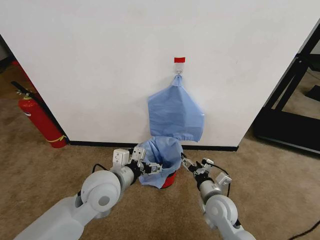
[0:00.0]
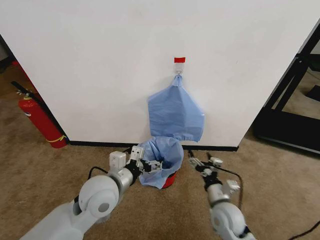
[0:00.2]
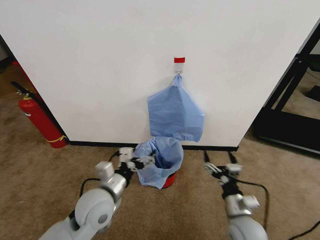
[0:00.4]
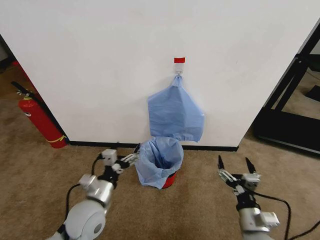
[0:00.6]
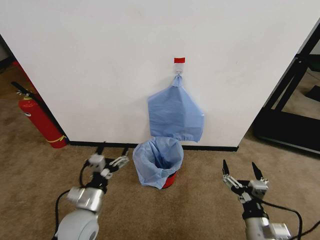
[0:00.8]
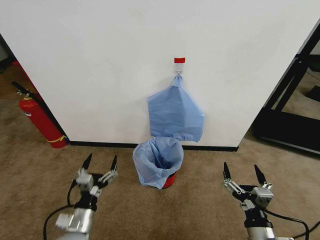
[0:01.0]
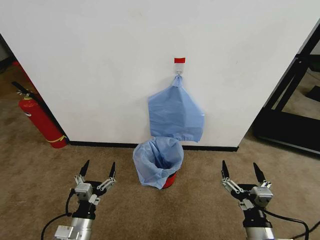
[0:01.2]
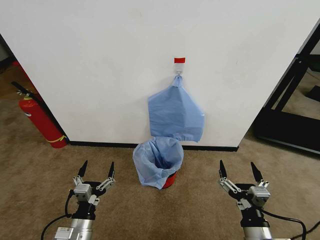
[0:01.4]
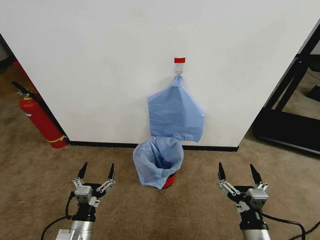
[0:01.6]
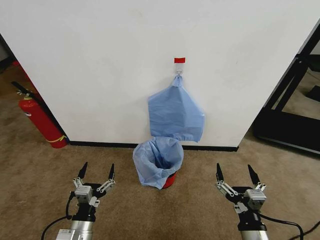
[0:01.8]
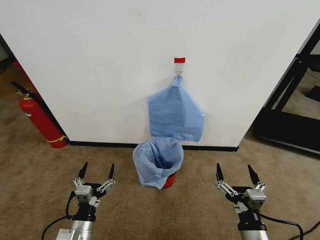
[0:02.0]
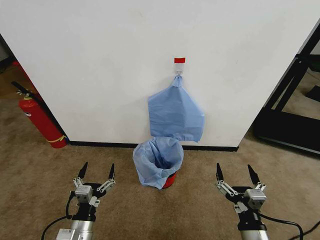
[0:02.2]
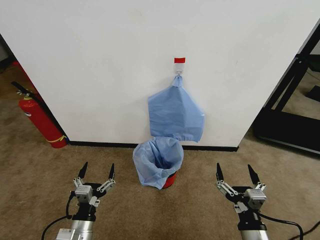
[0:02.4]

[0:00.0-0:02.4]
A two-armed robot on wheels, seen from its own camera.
Task of the whole recording: Pick up the garbage bag from the wall and place it over the trash bin.
0:00.0 to 0:01.2: The right gripper heads backward, covering roughly 15 cm. Meanwhile the left gripper travels downward, backward and to the left by about 25 cm.
0:01.2 to 0:02.4: The grippers make only small movements.

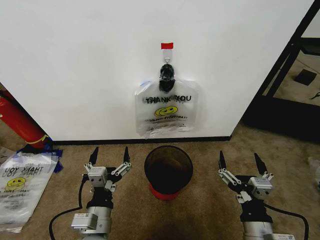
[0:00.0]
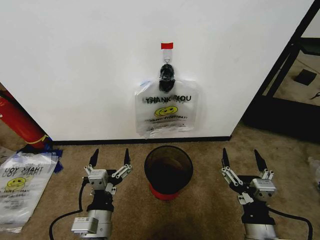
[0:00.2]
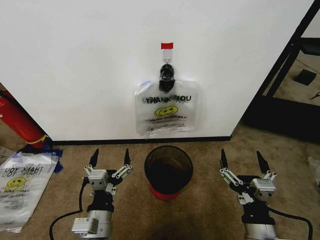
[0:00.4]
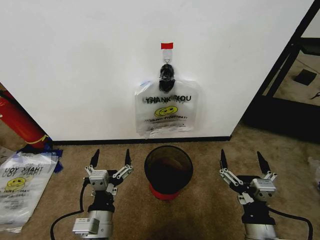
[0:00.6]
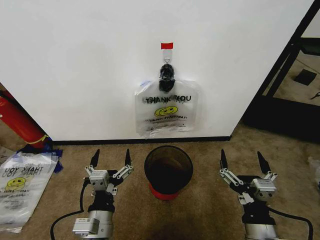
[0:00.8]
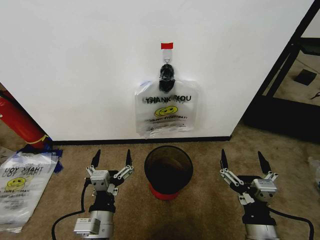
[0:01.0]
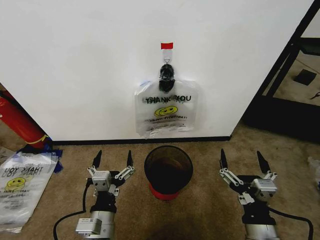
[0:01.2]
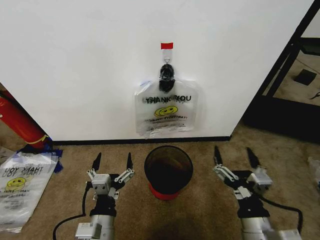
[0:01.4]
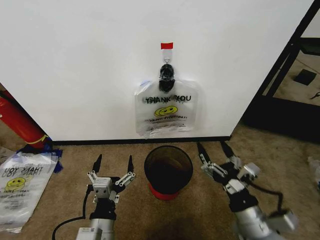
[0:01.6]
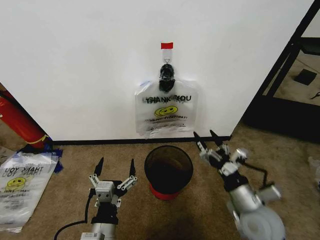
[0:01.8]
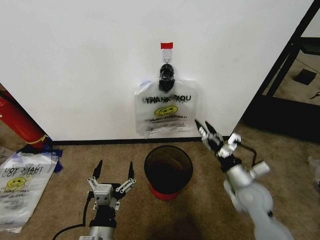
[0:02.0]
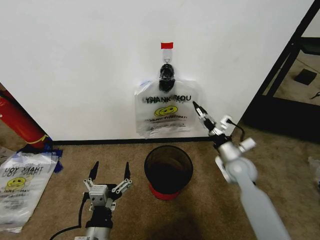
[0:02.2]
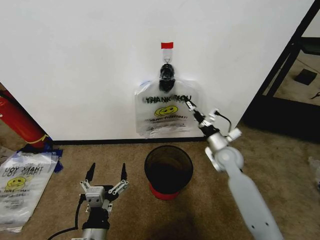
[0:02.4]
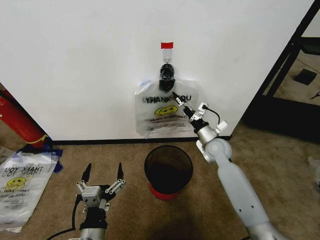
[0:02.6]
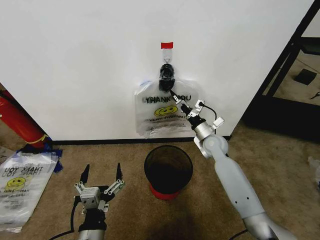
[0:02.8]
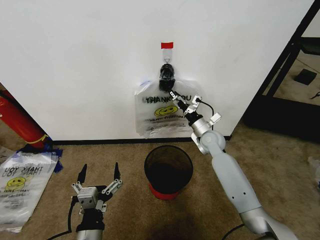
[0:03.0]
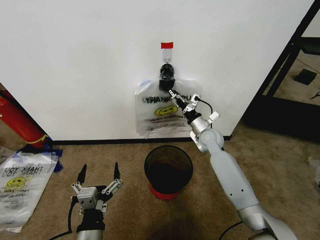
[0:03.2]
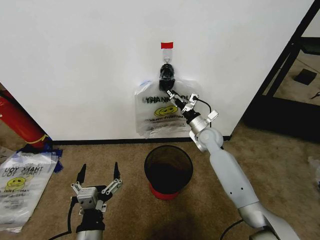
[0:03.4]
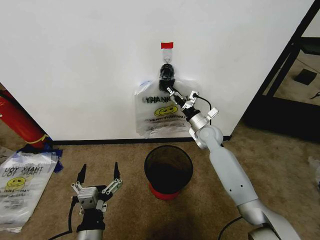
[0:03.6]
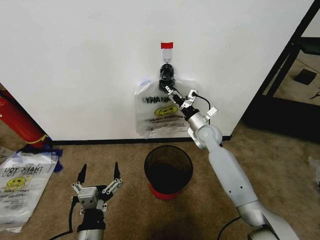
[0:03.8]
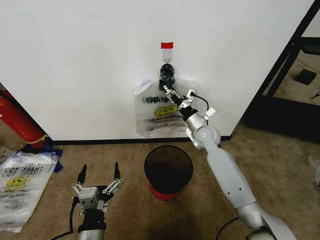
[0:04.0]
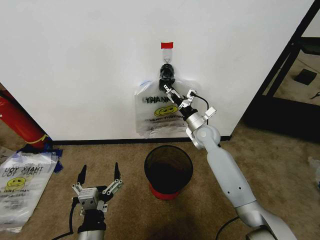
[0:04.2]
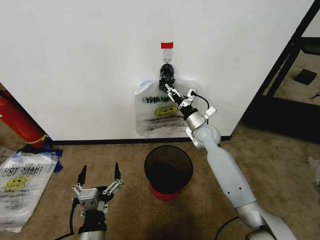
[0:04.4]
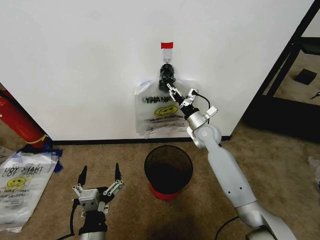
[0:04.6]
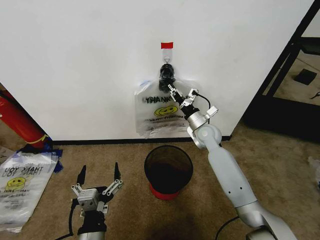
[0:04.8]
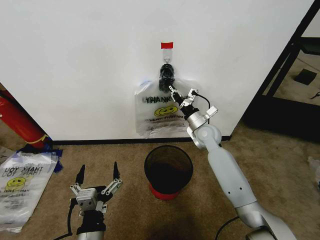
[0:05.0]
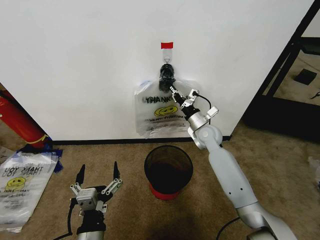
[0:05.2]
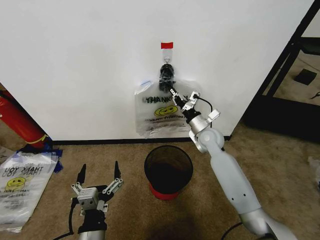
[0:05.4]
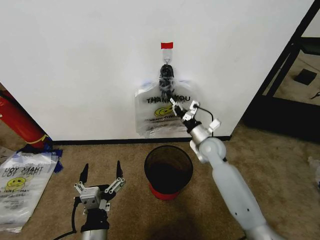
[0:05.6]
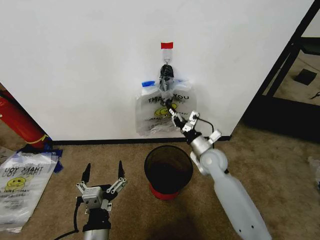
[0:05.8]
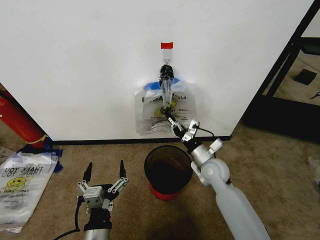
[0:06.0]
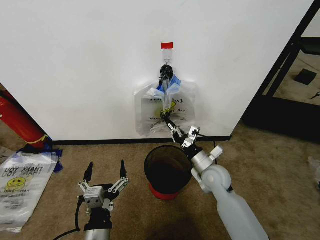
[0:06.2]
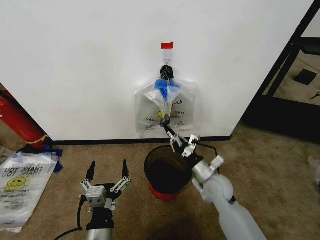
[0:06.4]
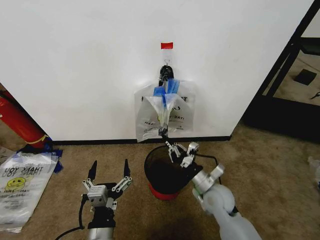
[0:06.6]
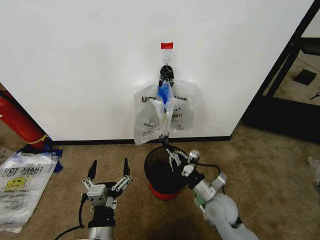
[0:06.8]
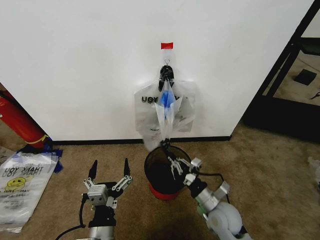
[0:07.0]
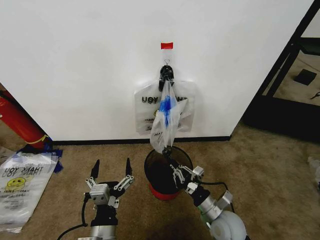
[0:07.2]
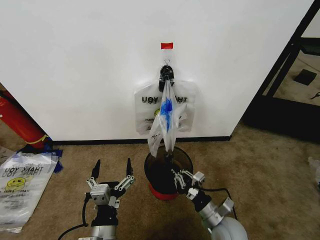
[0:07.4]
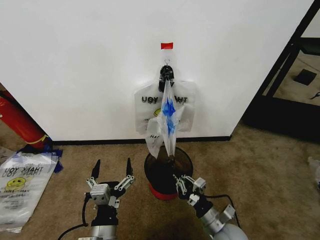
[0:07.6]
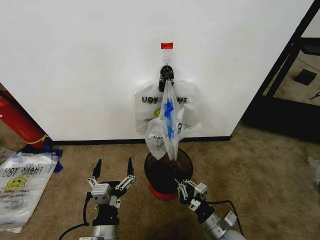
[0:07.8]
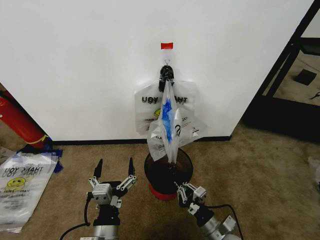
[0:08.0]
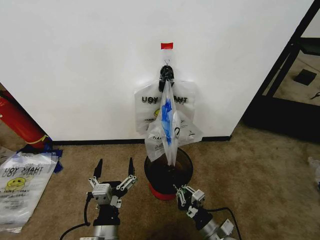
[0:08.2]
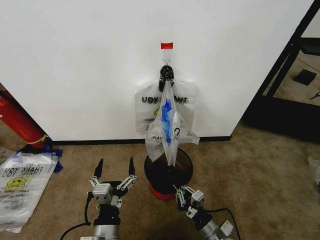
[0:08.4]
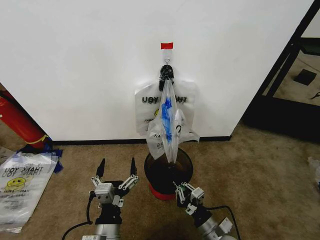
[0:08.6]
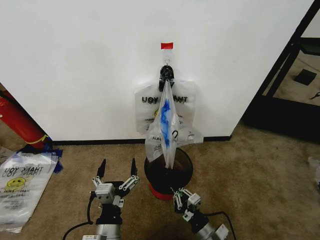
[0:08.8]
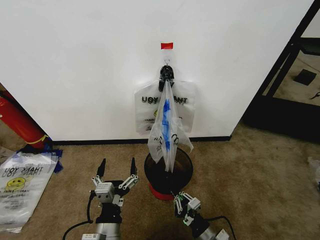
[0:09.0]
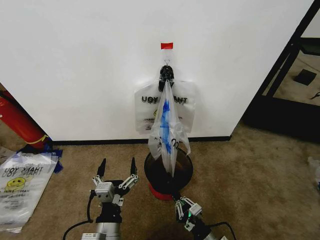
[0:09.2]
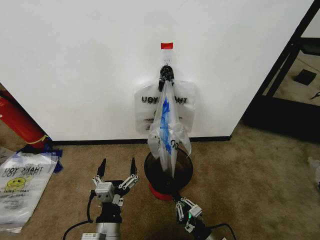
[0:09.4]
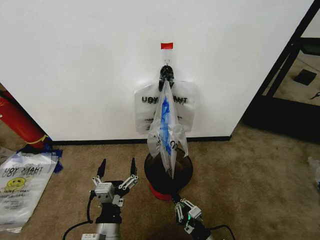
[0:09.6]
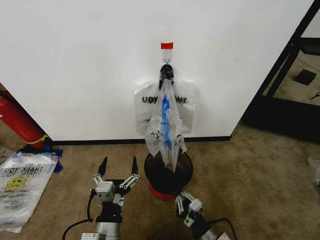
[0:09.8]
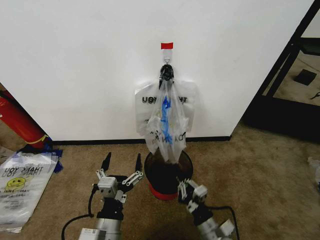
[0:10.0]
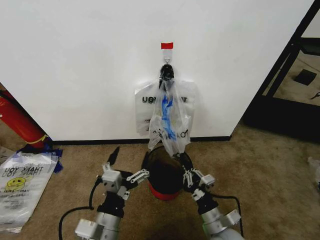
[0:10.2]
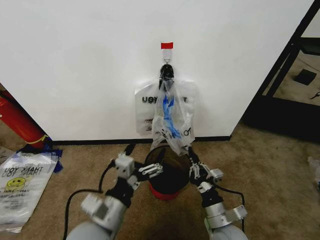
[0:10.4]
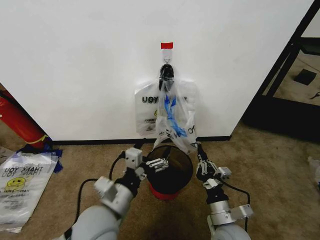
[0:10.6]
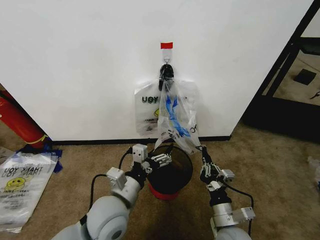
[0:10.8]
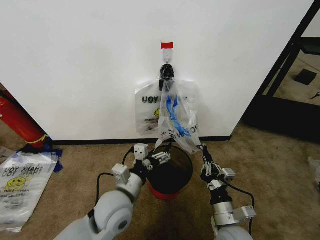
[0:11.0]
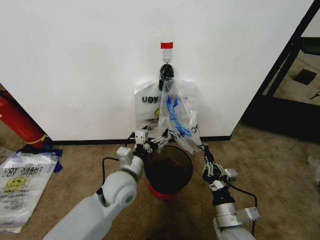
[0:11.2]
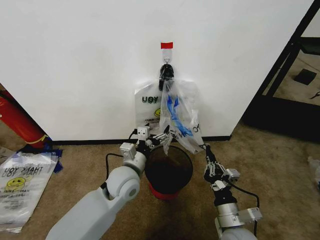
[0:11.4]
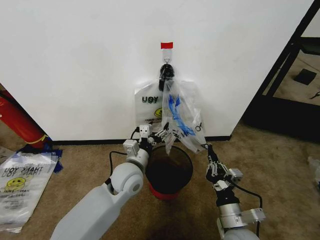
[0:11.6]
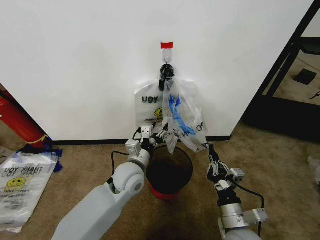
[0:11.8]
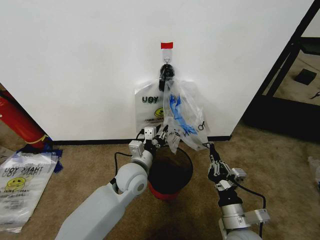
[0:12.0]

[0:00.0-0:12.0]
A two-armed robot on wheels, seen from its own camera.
Task of the whole recording: Pick up the garbage bag from the wall and place it over the trash bin.
0:01.6 to 0:03.0: The right gripper moves forward, about 35 cm.
0:03.0 to 0:04.4: The right gripper closes.
0:04.4 to 0:06.0: The right gripper moves backward and downward, some 15 cm, and closes its fingers.
0:06.0 to 0:07.6: The right gripper goes about 20 cm backward and downward.
0:07.6 to 0:09.0: The right gripper travels backward by some 5 cm.
0:09.0 to 0:10.4: Both grippers travel together upward, some 10 cm.
0:10.4 to 0:12.0: The left gripper heads forward, covering roughly 20 cm, and closes.

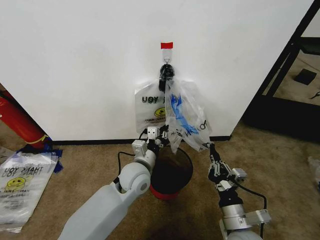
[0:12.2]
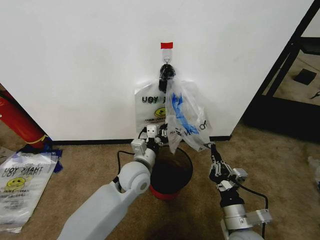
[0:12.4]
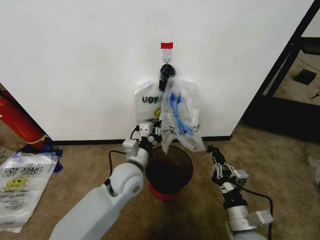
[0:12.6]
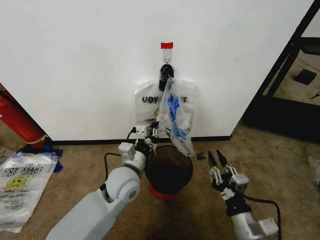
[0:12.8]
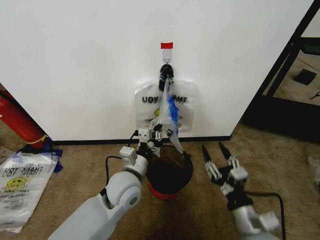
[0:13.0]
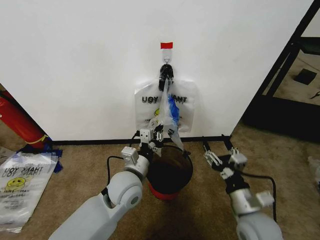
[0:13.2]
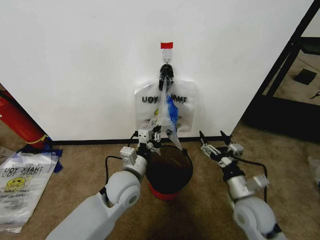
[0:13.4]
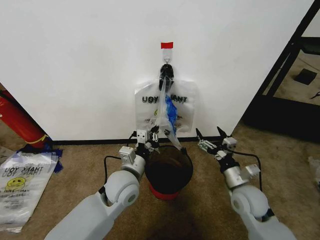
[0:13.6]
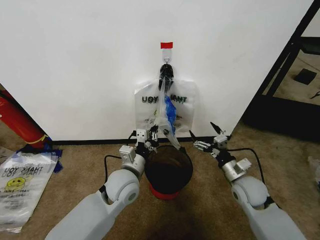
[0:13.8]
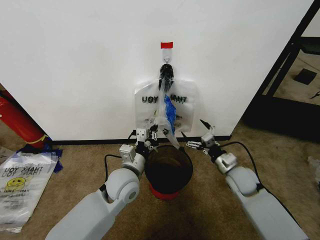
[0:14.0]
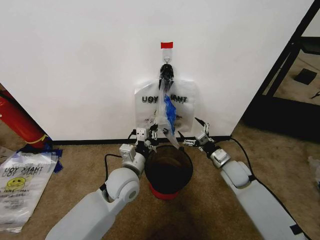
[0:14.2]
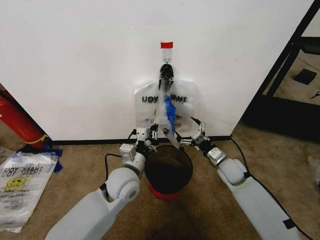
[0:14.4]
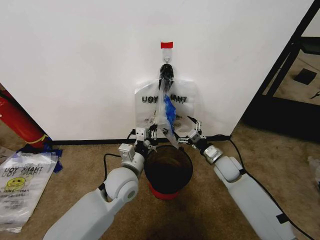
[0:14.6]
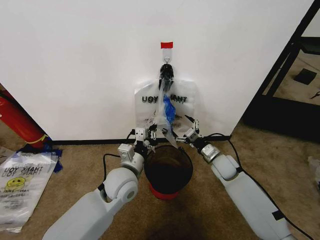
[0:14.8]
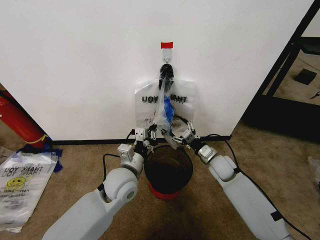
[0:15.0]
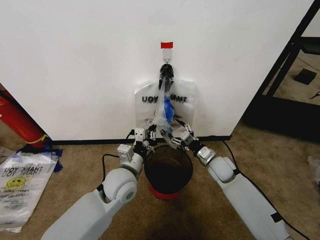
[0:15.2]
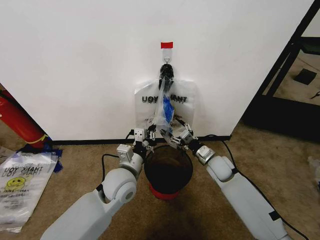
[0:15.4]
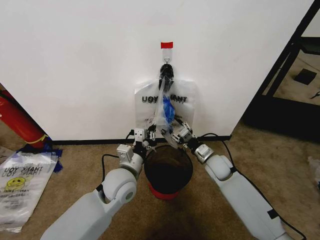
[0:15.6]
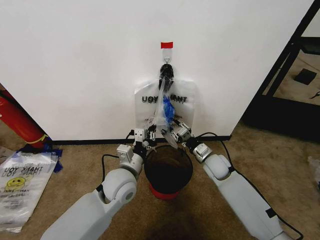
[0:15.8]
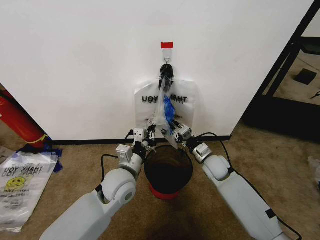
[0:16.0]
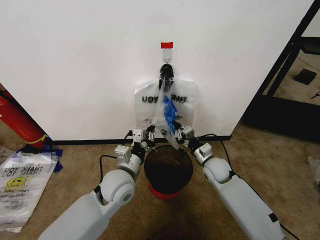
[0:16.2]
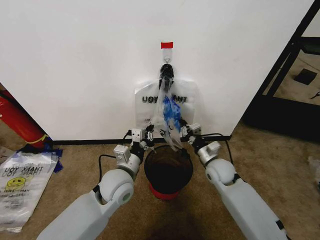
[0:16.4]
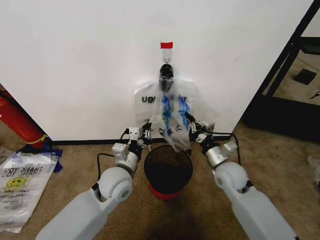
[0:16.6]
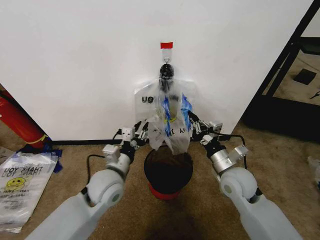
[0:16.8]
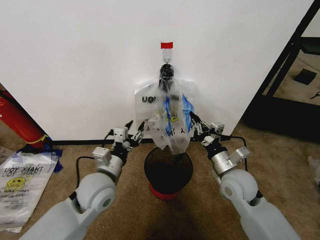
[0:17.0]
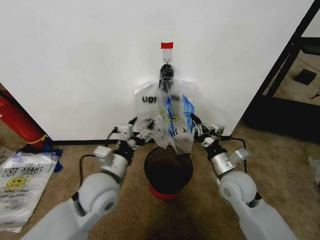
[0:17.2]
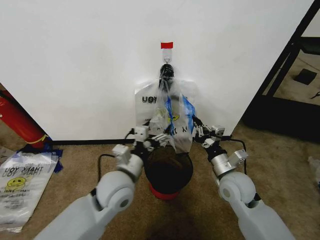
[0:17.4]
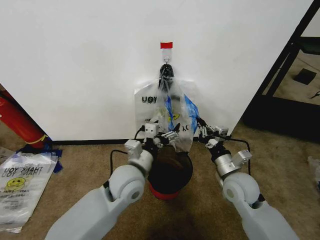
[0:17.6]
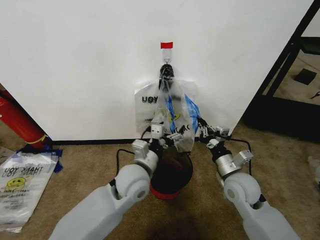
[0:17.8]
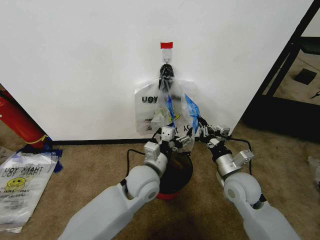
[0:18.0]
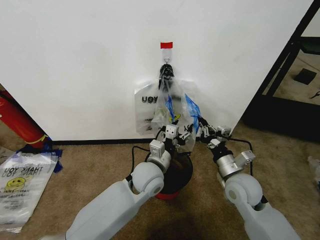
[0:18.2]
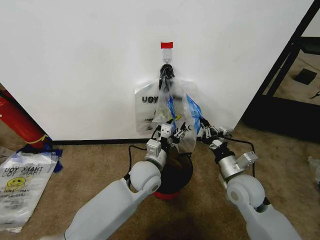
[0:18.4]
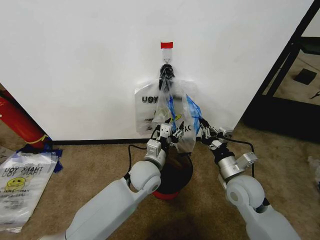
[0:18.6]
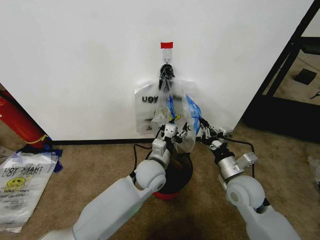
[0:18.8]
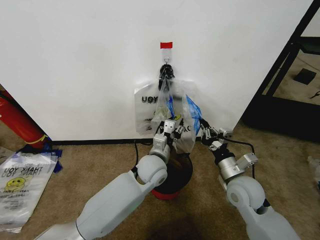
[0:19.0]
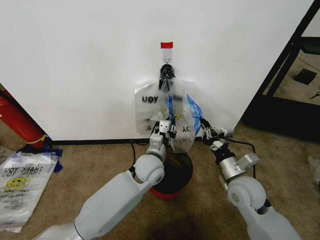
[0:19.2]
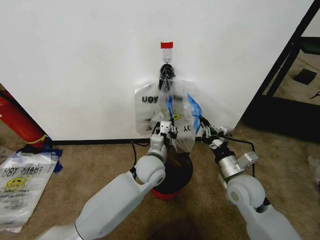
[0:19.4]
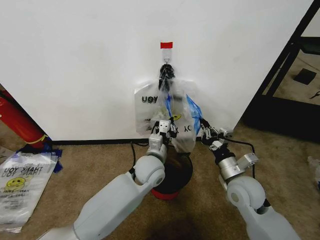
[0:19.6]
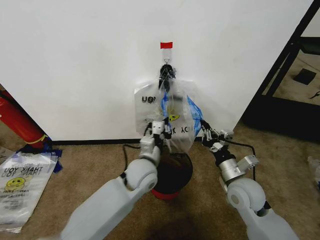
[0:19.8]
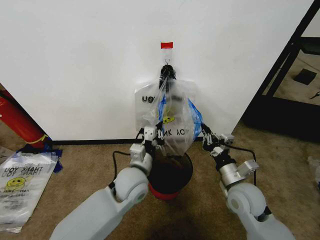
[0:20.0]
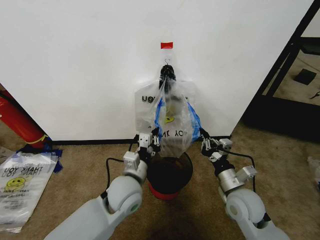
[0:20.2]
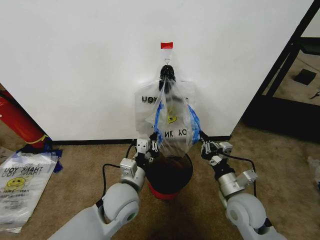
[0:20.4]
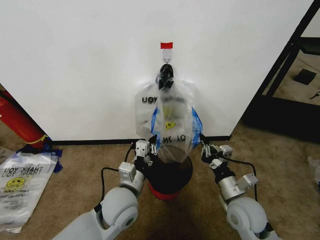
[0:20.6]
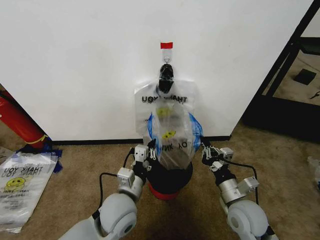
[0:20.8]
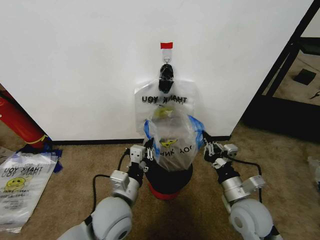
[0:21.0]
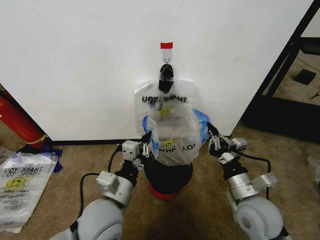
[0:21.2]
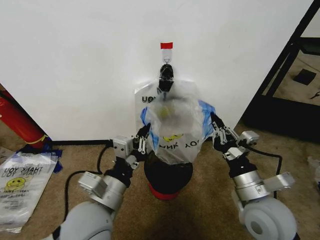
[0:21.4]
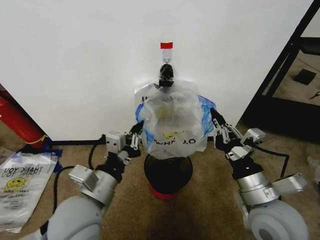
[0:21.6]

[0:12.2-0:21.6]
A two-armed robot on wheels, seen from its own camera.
Task of the whole recording: Pick up the garbage bag from the wall and place it over the trash bin.
0:12.2 to 0:13.8: The right gripper moves forward, about 10 cm, and opens.
0:13.8 to 0:15.4: The right gripper heads forward, covering some 15 cm.
0:15.4 to 0:17.0: The right gripper travels backward and upward by roughly 15 cm, and closes. The left gripper heads to the left, covering approximately 5 cm, and opens up.
0:17.0 to 0:18.4: The left gripper travels to the right and forward by approximately 15 cm, and opens, then closes once more.
0:18.4 to 0:20.0: The left gripper closes its fingers.
0:20.0 to 0:21.6: The left gripper shifts about 15 cm backward, upward and to the left; the right gripper shifts some 15 cm upward and backward.
